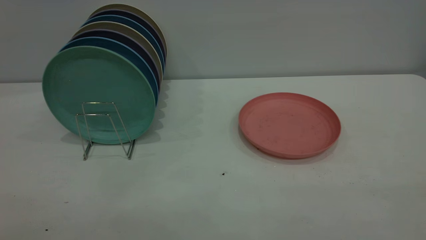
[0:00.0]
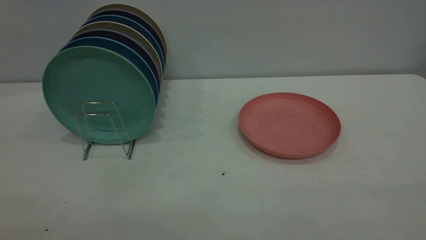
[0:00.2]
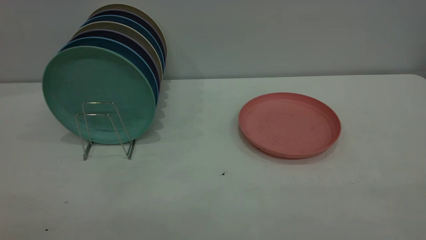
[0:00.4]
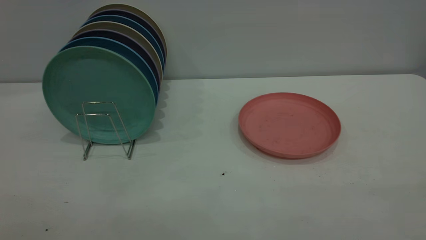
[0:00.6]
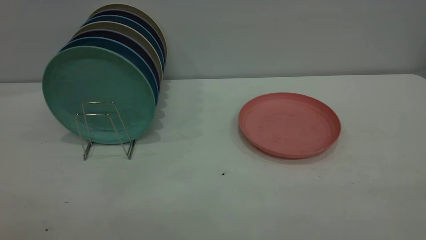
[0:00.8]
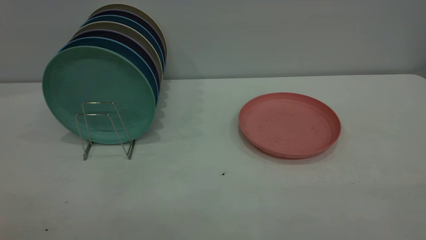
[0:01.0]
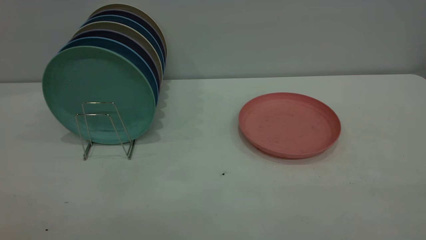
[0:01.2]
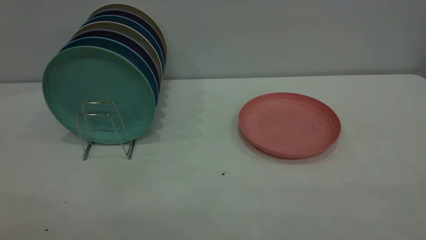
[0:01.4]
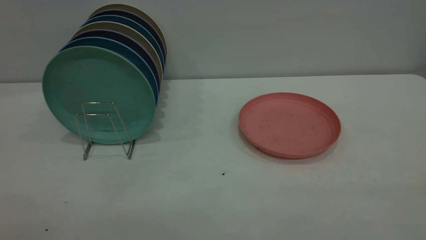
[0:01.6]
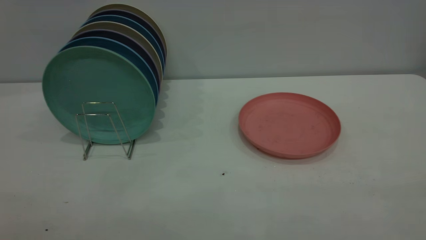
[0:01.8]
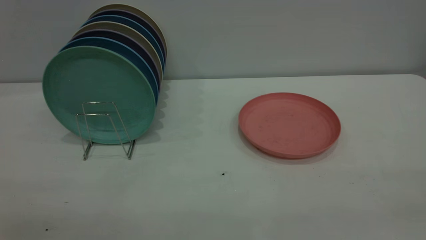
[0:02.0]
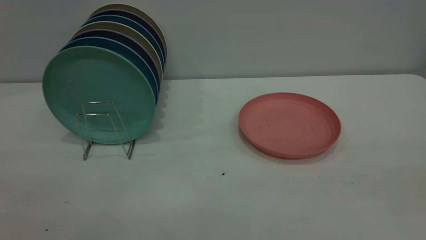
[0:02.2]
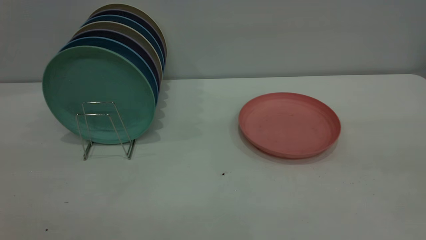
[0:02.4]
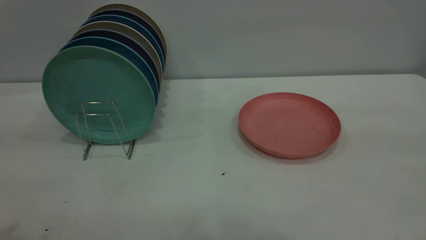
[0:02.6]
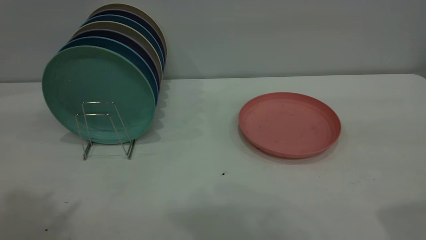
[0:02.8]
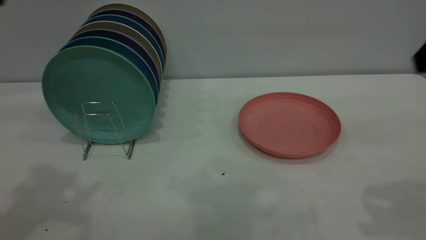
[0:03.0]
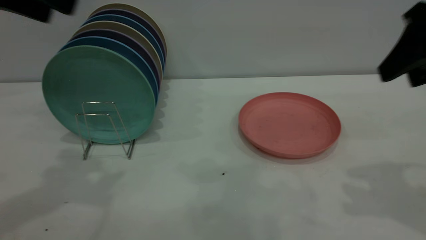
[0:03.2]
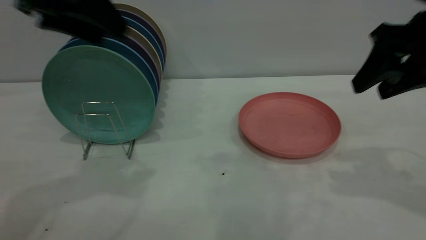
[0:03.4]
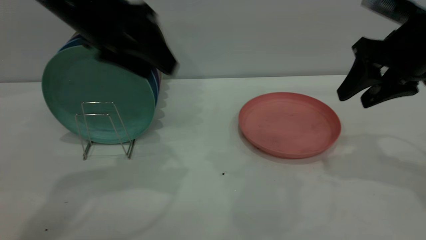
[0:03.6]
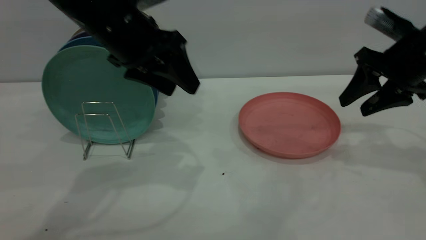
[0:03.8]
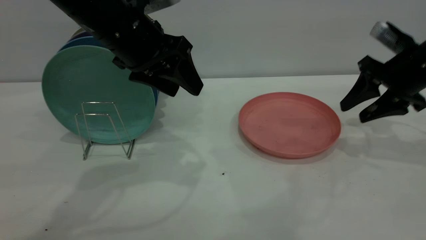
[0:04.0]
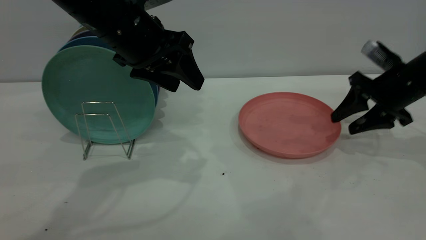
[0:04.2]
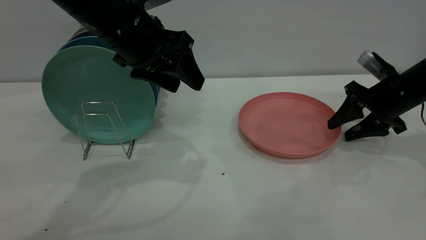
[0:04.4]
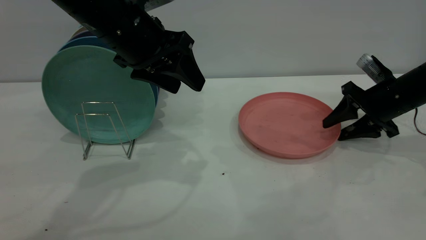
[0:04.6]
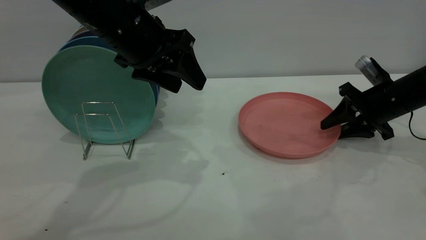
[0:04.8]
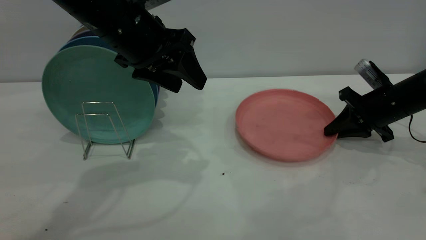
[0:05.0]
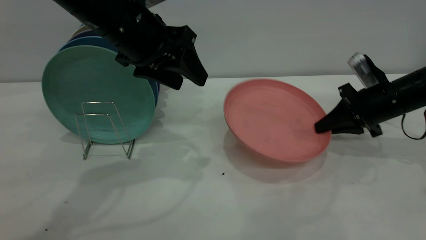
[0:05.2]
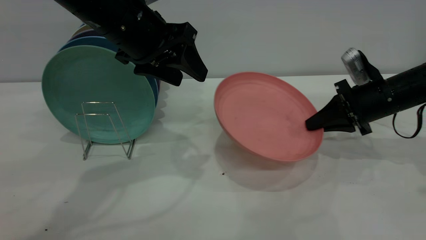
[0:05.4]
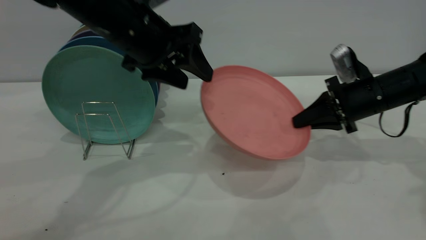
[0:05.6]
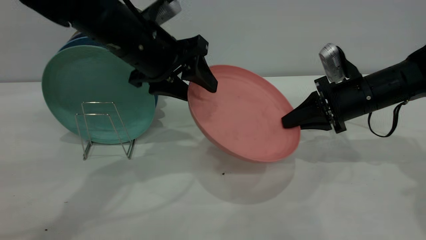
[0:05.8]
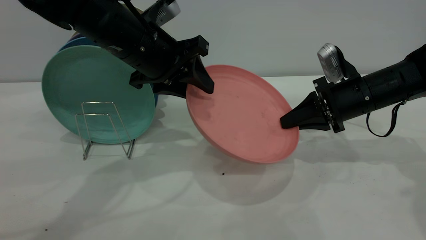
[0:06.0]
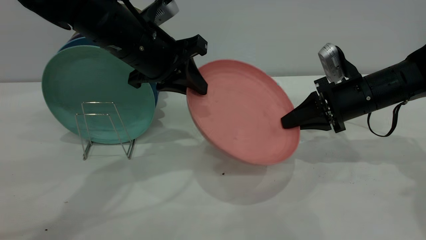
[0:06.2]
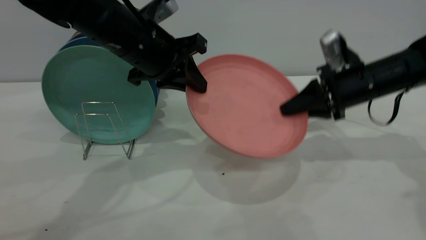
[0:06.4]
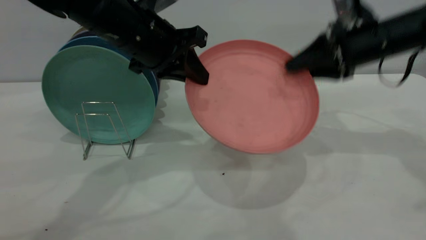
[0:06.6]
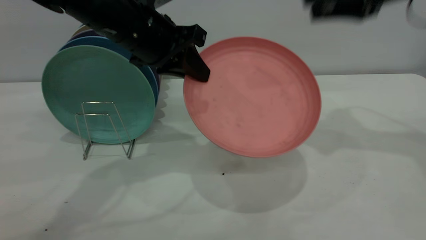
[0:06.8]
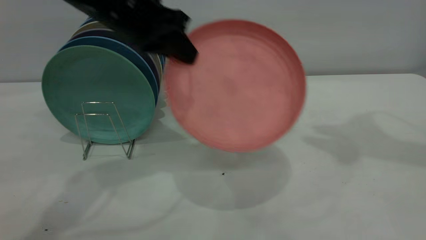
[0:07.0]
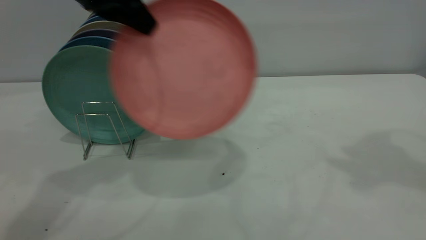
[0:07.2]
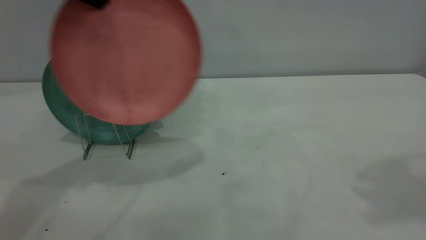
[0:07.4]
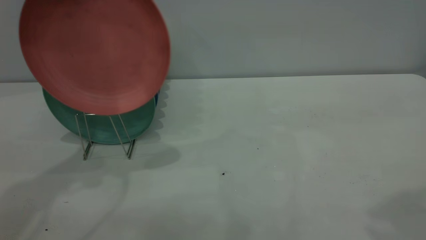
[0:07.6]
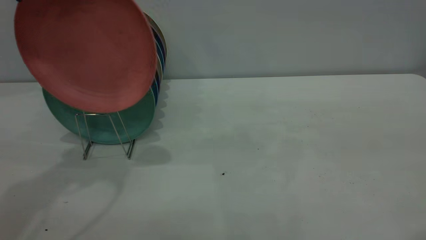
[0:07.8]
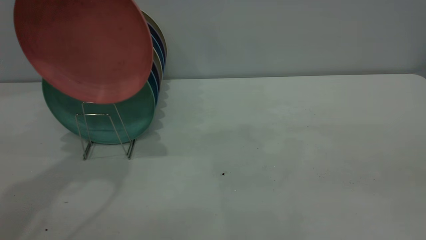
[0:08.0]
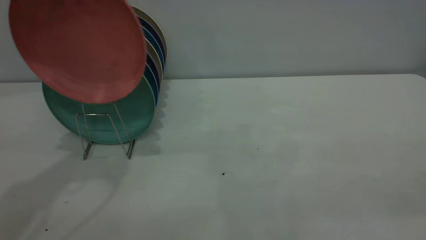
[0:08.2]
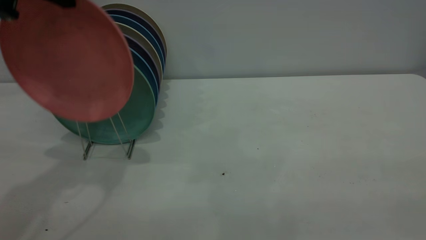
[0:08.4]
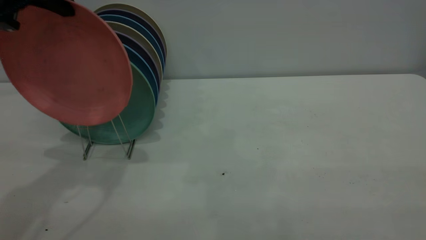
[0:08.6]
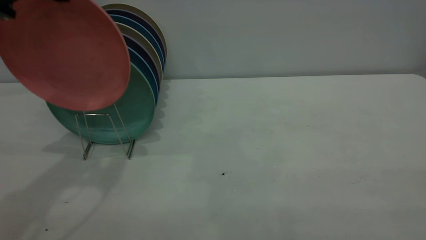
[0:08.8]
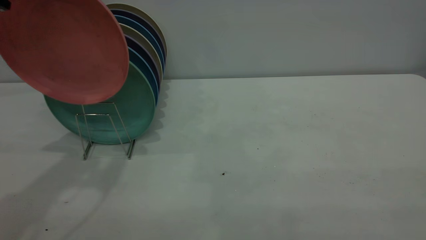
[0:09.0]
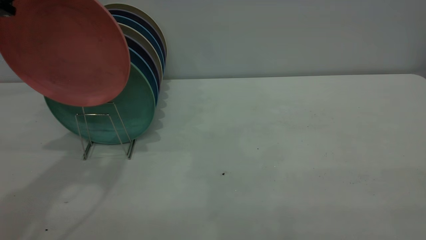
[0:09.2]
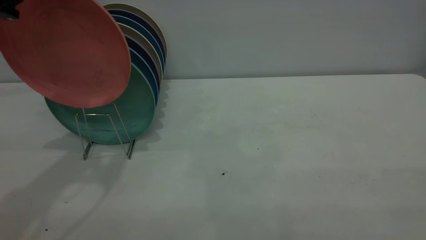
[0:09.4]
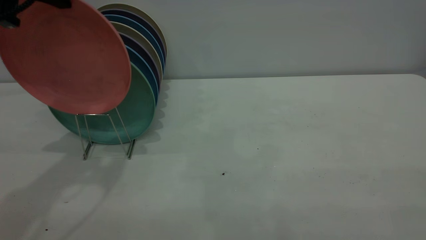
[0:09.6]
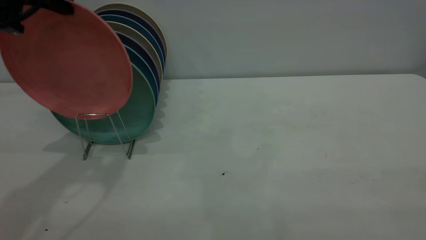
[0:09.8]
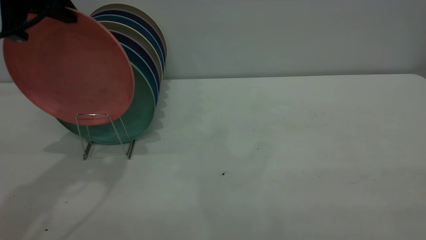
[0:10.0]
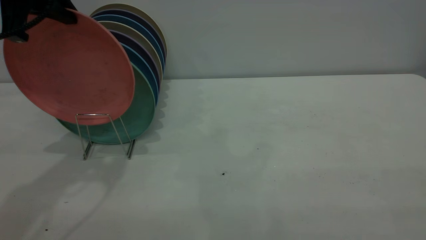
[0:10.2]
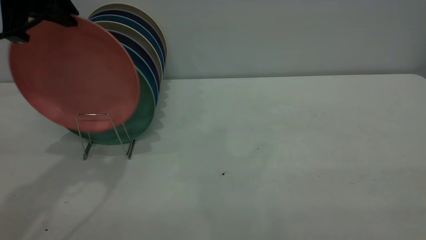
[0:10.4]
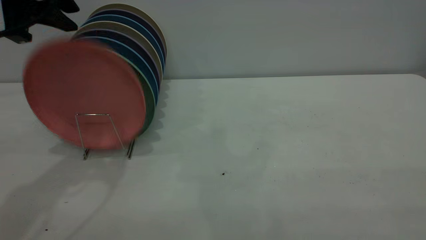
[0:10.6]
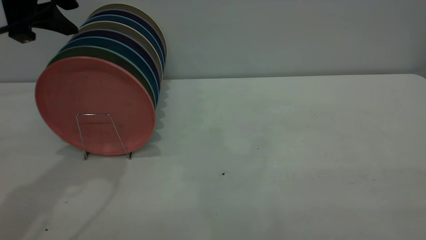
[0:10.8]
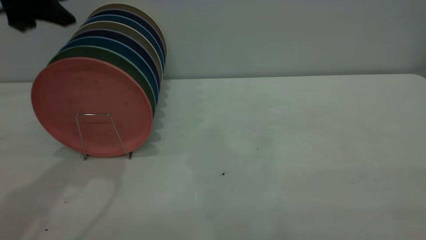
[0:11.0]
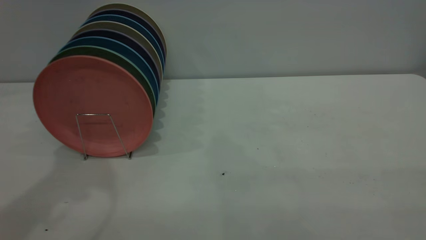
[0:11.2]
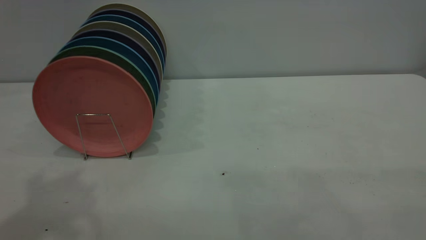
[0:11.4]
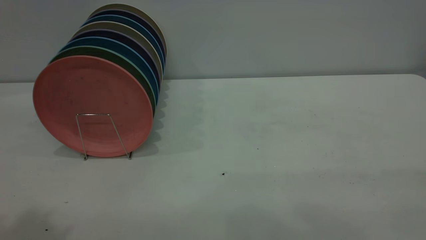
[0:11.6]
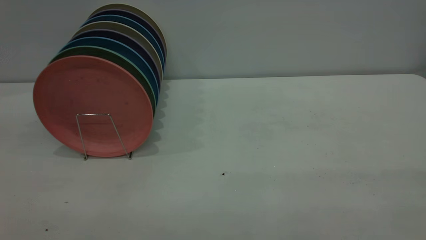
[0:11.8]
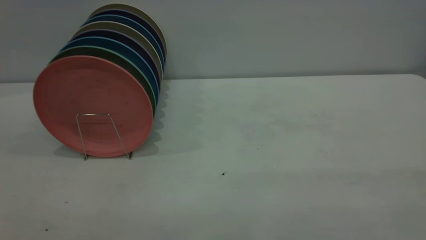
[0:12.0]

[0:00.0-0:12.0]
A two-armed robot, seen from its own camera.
Task of the whole recording: the right gripper grasp the pink plate, the right gripper pass the pink plate to the left gripper, and the left gripper place the pink plate on the plate rack.
Step, 0:00.0 to 0:05.2: Pick up the plate with the right gripper.
Step, 0:05.4 to 0:06.6: Pass the plate from the right gripper to the left gripper.
Step, 0:06.8 to 0:11.0: Place the plate on the shelf.
0:00.0 to 0:01.6: The two grippers keep their place.
0:03.0 to 0:04.4: The left gripper heads to the right, downward and forward, covering about 20 cm; the right gripper moves downward and forward, about 30 cm.
0:04.4 to 0:06.0: The left gripper closes its fingers. The right gripper heads to the left, covering roughly 5 cm, and closes its fingers.
0:06.0 to 0:07.6: The left gripper goes approximately 20 cm upward and to the left, and closes its fingers. The right gripper moves upward and backward, roughly 40 cm, and opens its fingers.
0:07.6 to 0:09.0: The right gripper shifts roughly 20 cm backward and downward.
0:09.0 to 0:10.4: The grippers make only small movements.
0:10.4 to 0:12.0: The left gripper goes about 30 cm backward and upward, and opens up.
